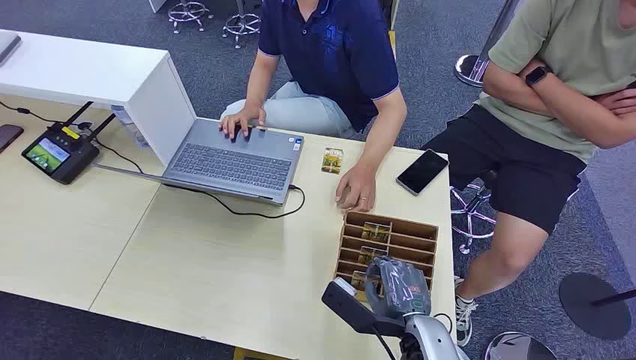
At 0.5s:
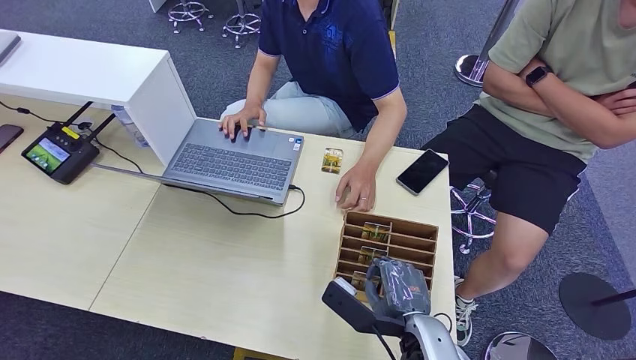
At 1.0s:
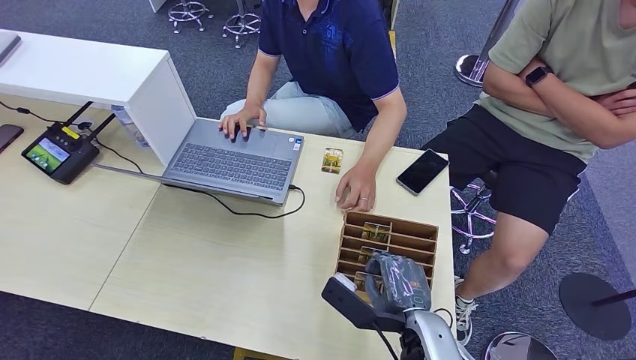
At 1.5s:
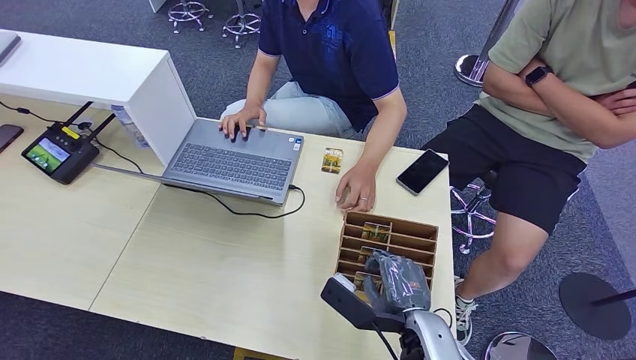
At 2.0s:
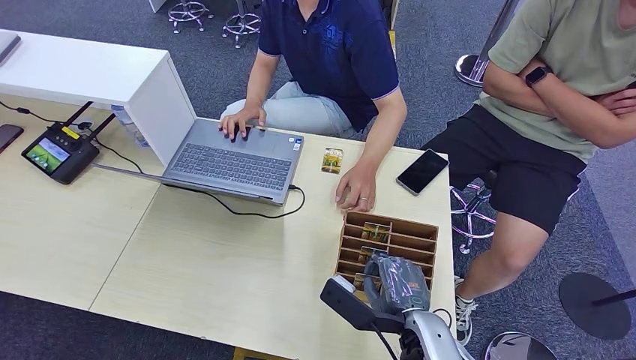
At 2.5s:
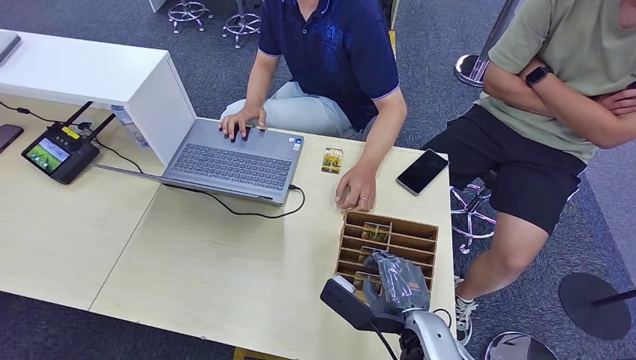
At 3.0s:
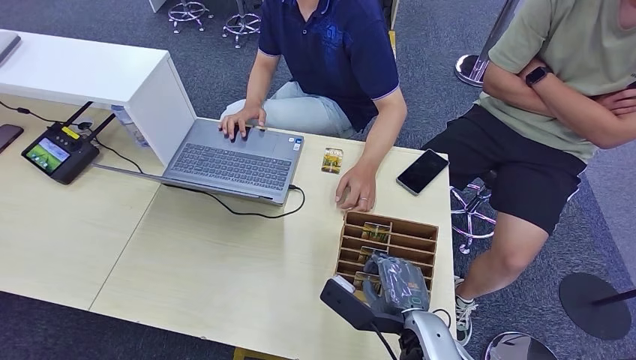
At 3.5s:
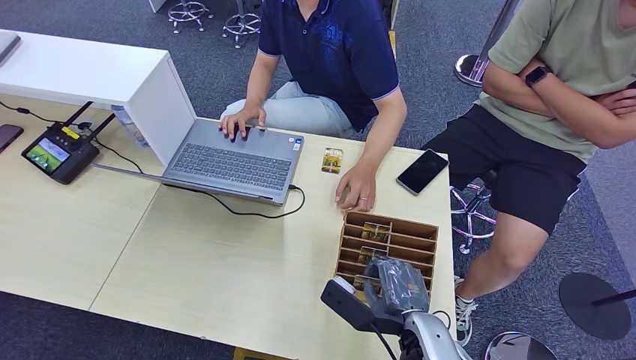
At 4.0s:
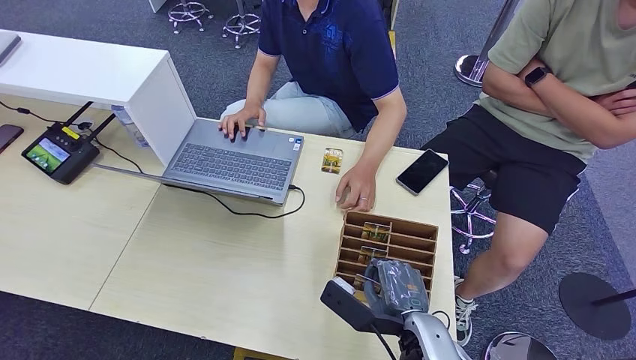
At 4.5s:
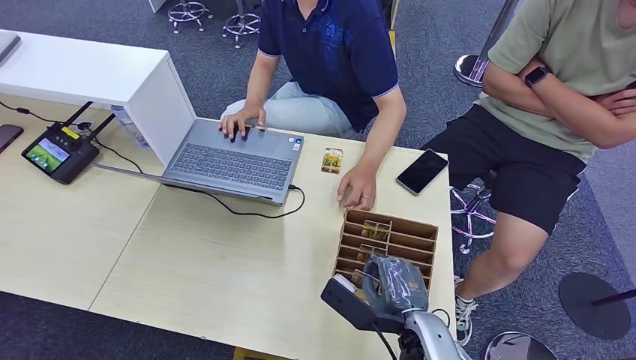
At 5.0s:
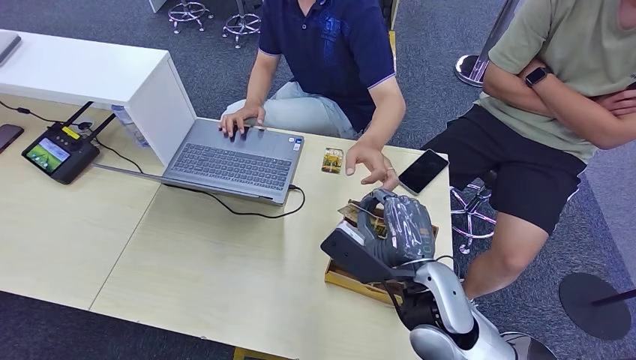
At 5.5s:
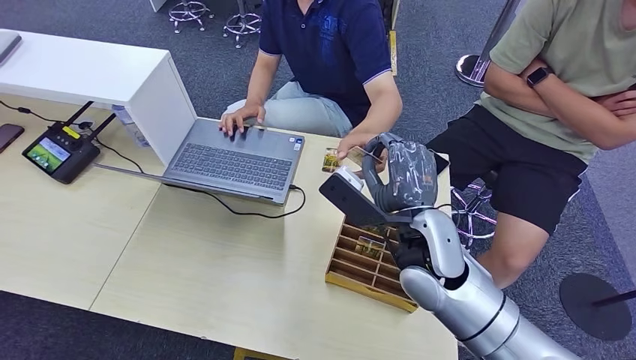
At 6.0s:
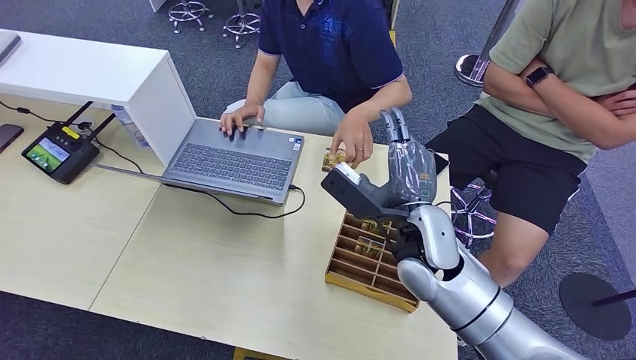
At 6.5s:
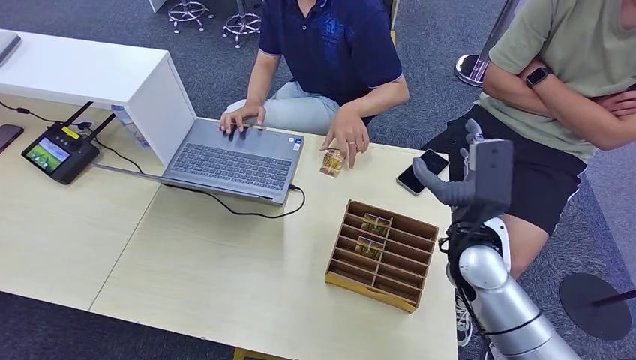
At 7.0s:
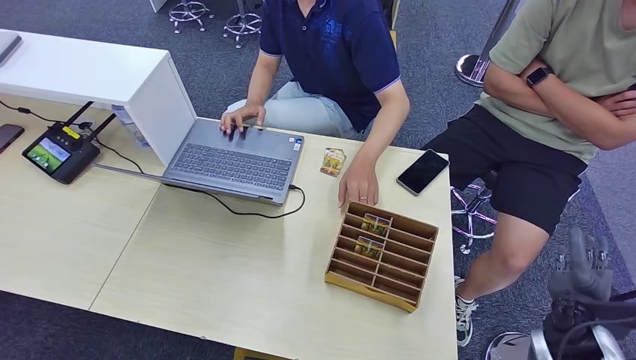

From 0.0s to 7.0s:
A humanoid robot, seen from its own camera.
Step, from 0.0s to 5.0s: Pick up the room card from the card holder.
Step, from 5.5s to 7.0s: Hand the room card to the target.
From 2.0s to 3.5s: Both hands stay about where they are.
From 3.5s to 5.0s: The right hand travels upward by approximately 10 cm.
From 5.0s to 7.0s: The right hand shifts roughly 25 cm to the right.
